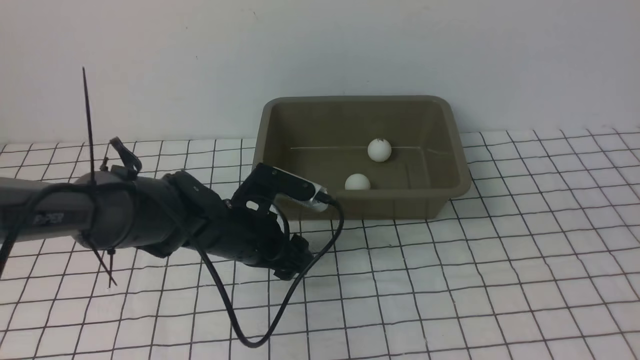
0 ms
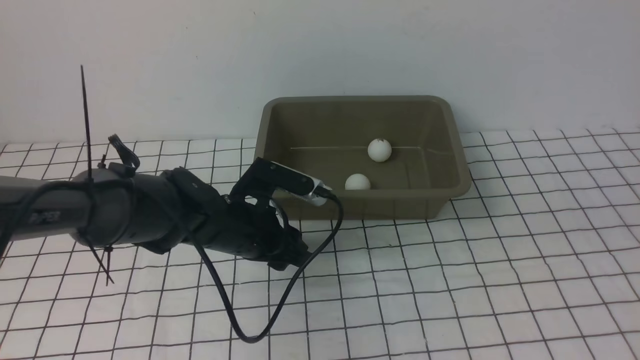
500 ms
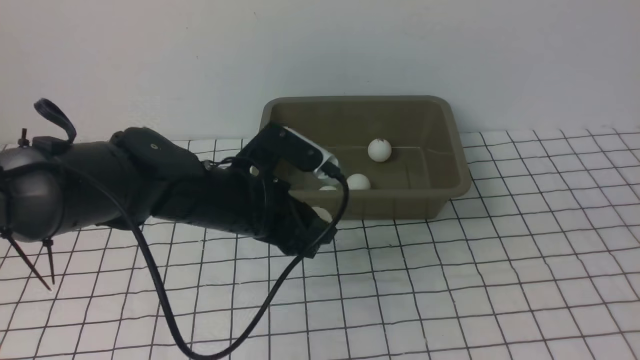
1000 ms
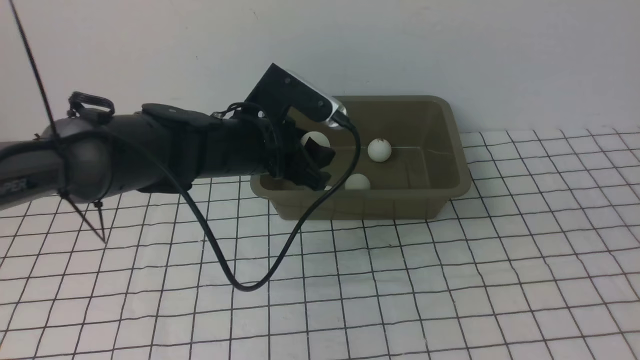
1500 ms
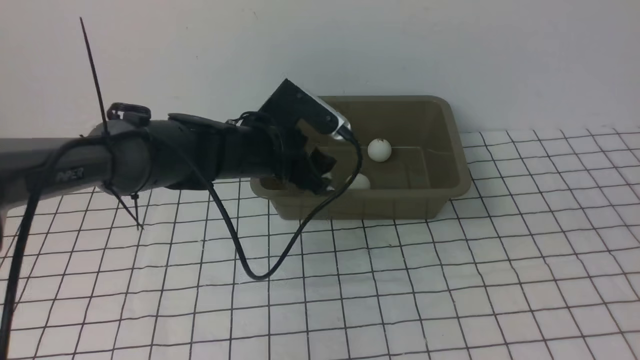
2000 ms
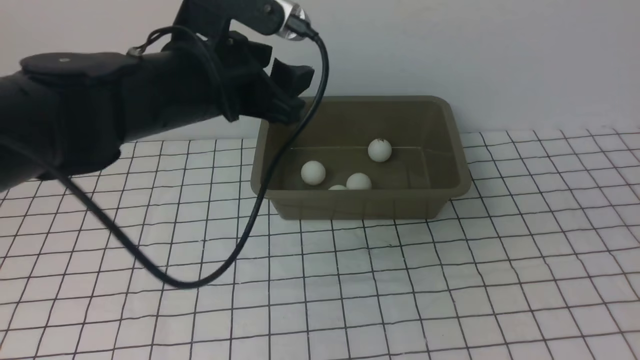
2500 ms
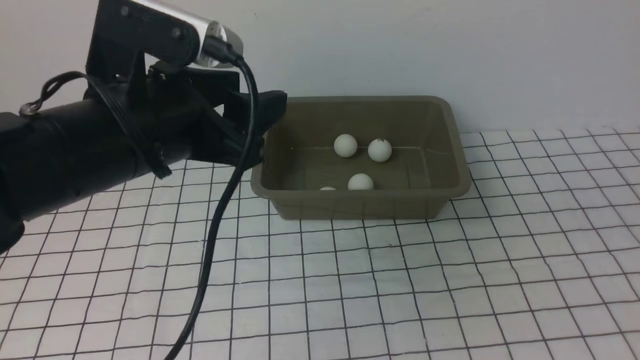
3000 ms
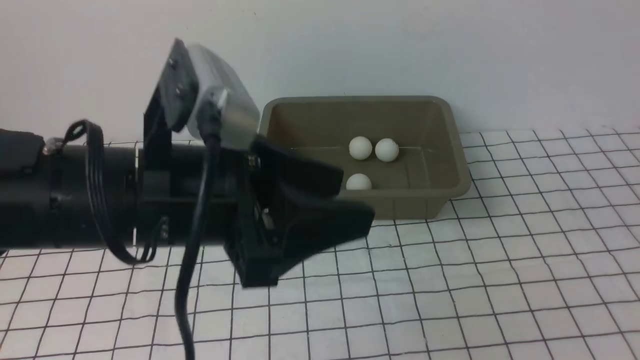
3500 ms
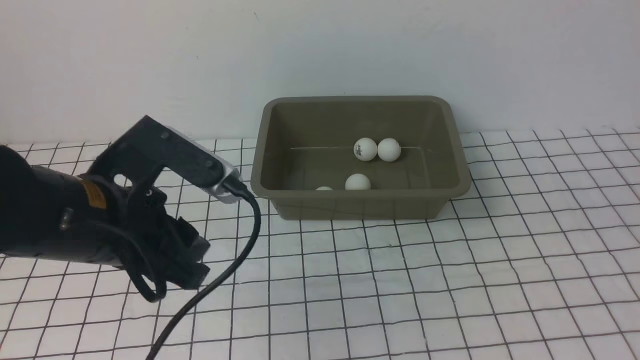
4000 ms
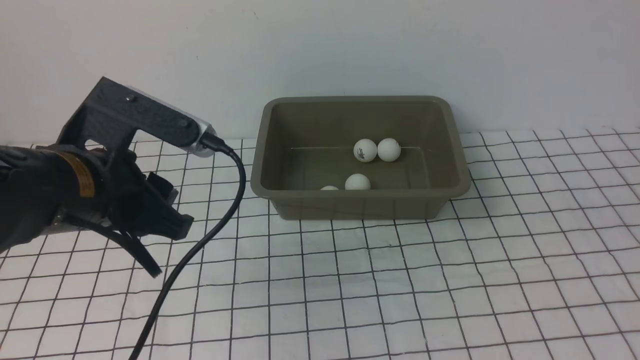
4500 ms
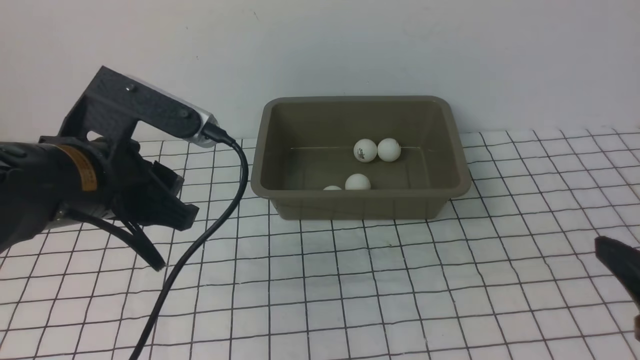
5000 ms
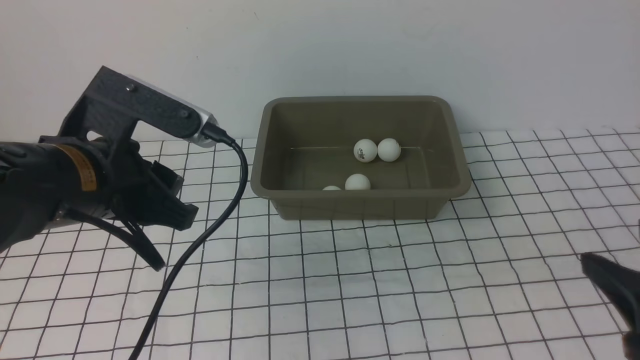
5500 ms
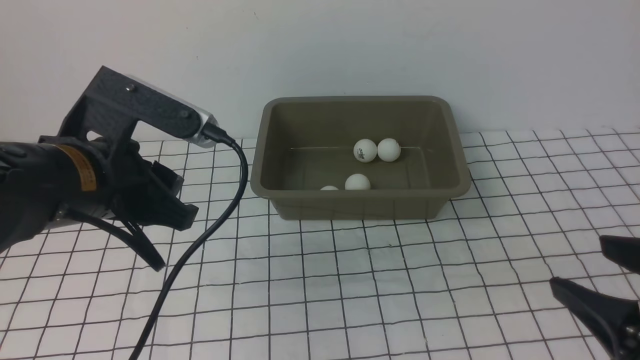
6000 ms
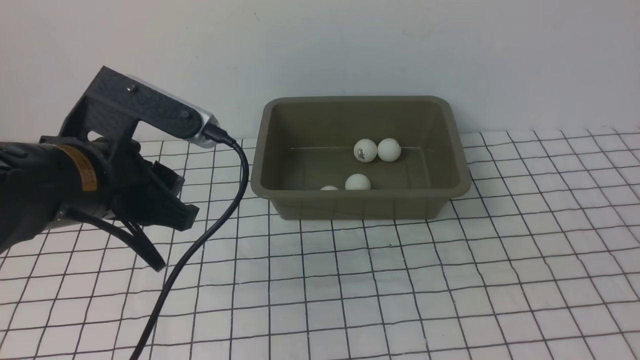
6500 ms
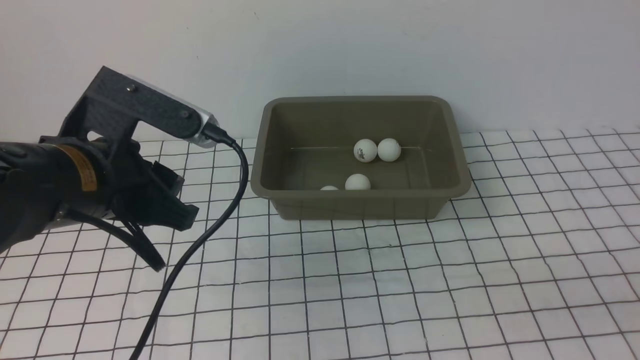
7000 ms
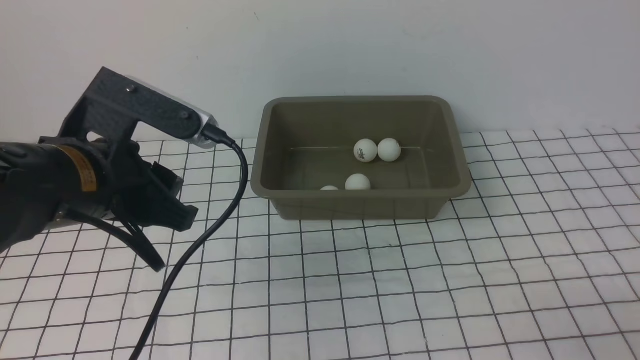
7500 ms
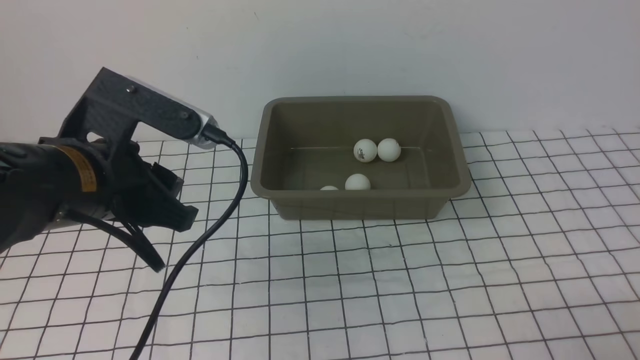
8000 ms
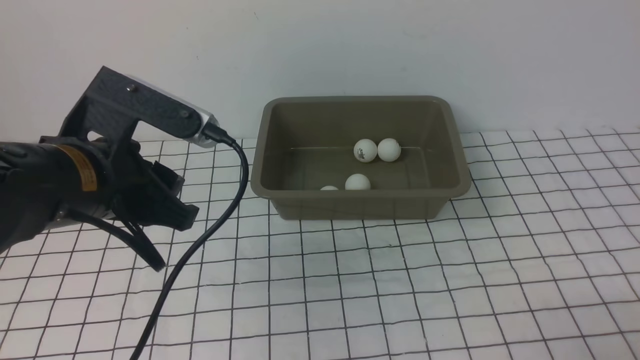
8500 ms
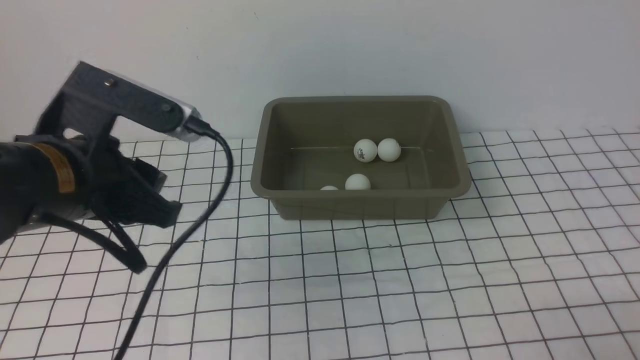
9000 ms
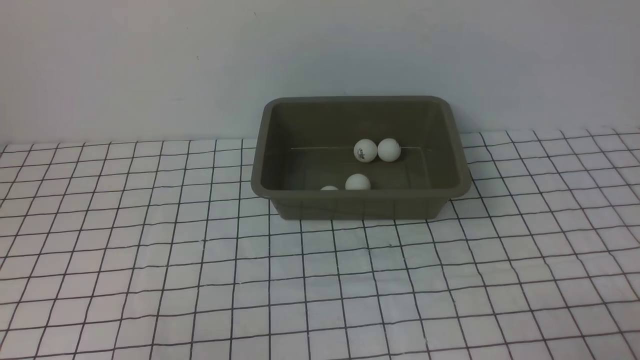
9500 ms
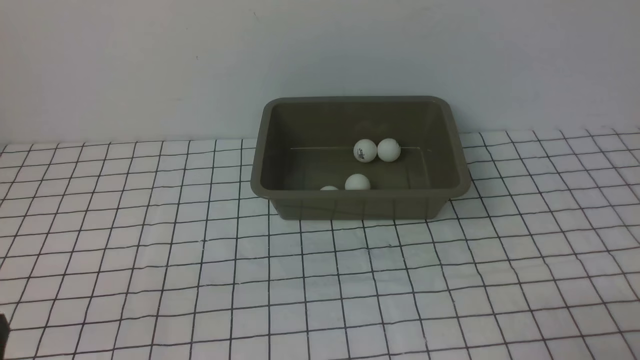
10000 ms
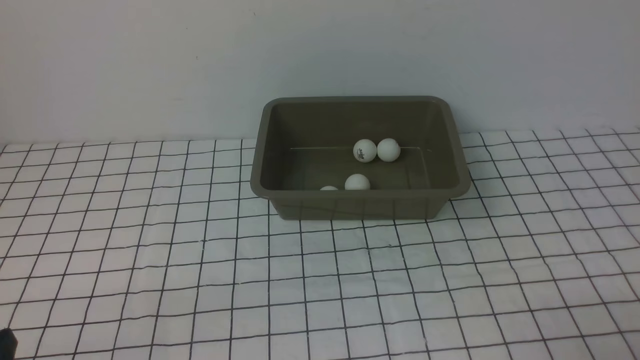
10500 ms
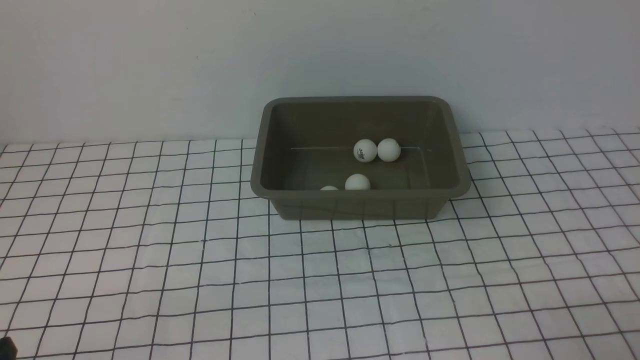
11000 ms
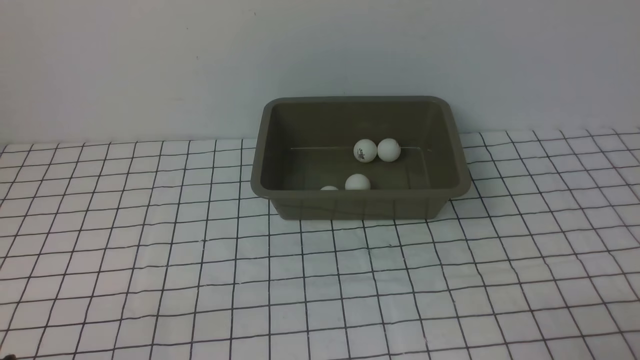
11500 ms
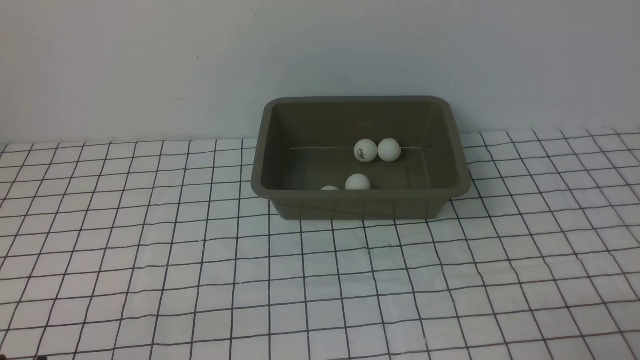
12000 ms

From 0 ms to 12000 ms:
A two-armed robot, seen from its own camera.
Step, from 1000 ms to 2000 ms: use the left arm to put the table tennis ball into the box.
From 0 ms to 2000 ms: The left gripper heads upward and forward, covering some 10 cm.
From 2000 ms to 4000 ms: The left gripper is displaced backward and to the left by approximately 20 cm, and closes up.
From 4000 ms to 6000 ms: The right gripper is displaced downward by some 5 cm.
From 6000 ms to 8000 ms: The right gripper moves downward and backward, roughly 10 cm.
From 8000 ms to 10000 ms: The left gripper shifts approximately 20 cm backward, downward and to the left.

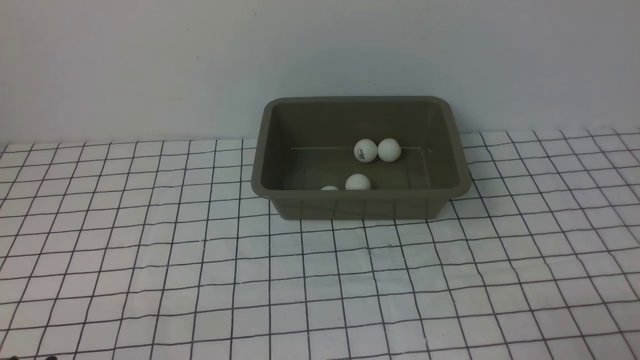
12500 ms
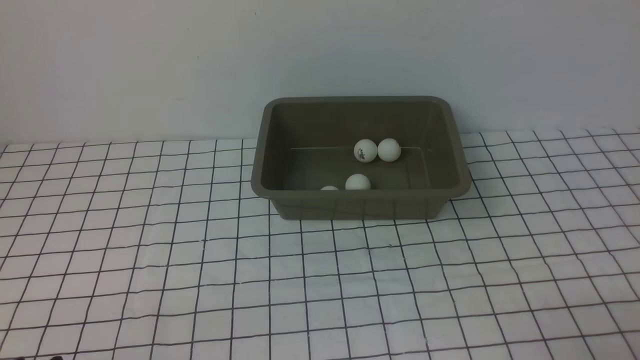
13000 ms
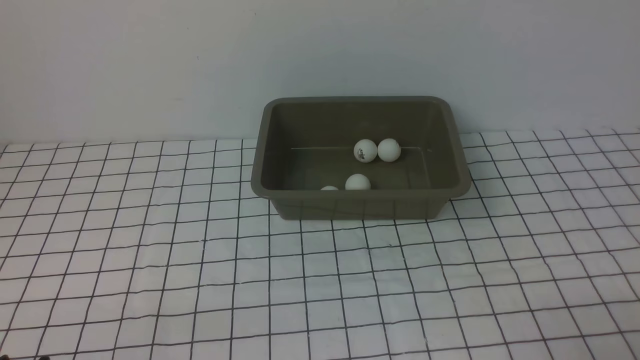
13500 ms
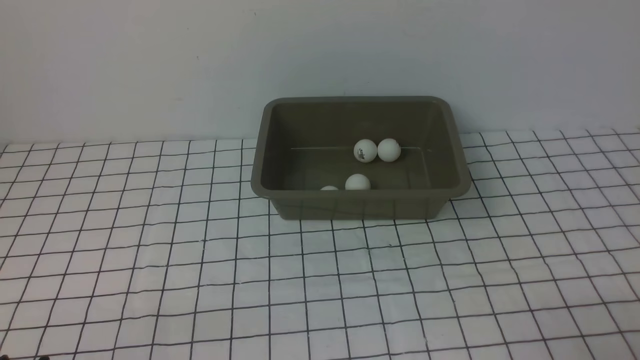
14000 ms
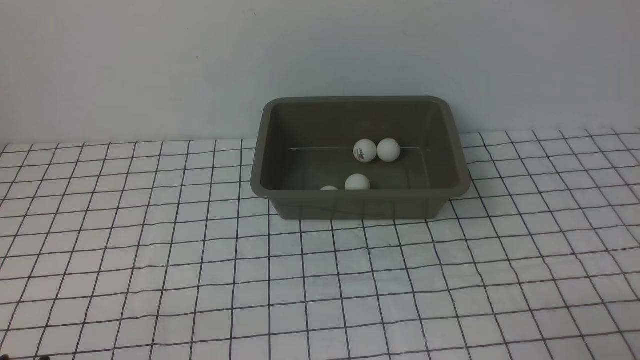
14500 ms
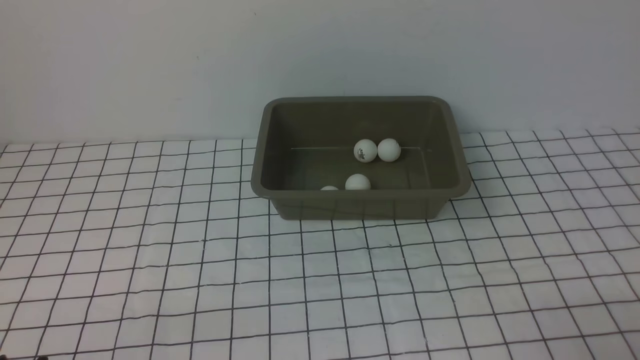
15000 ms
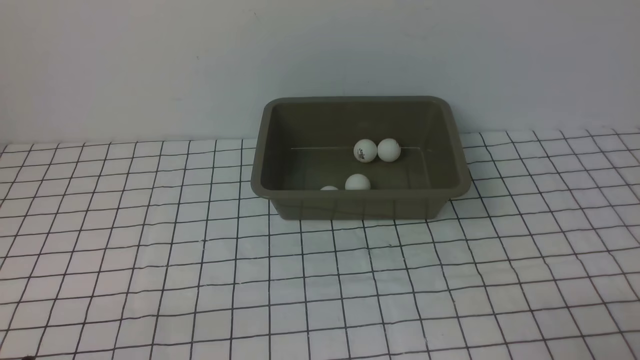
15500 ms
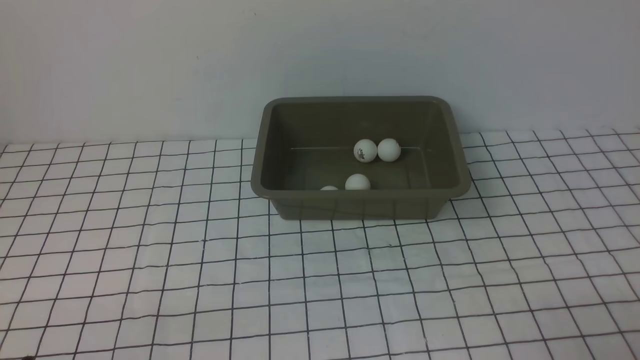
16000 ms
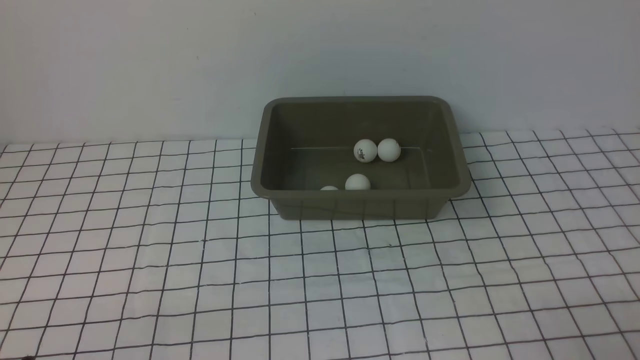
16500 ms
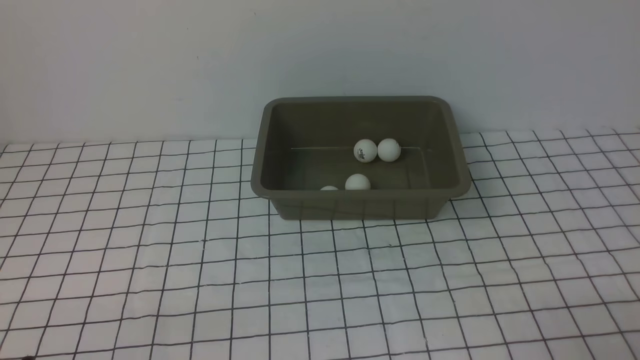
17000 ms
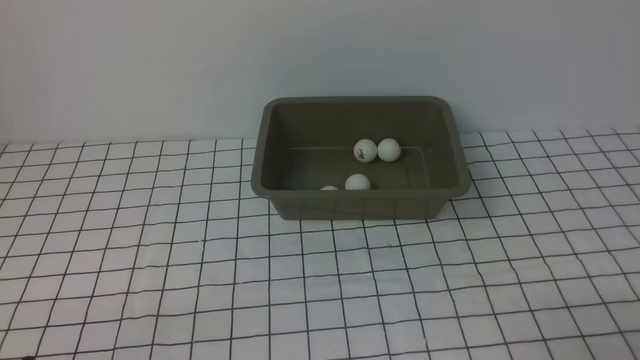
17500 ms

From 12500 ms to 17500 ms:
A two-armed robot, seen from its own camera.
From 15000 ms to 17500 ms: Both grippers stay about where they are.
